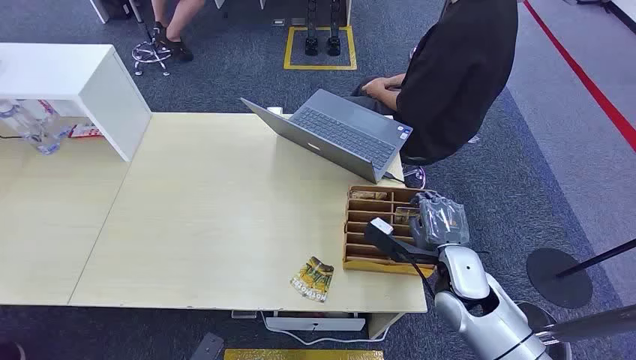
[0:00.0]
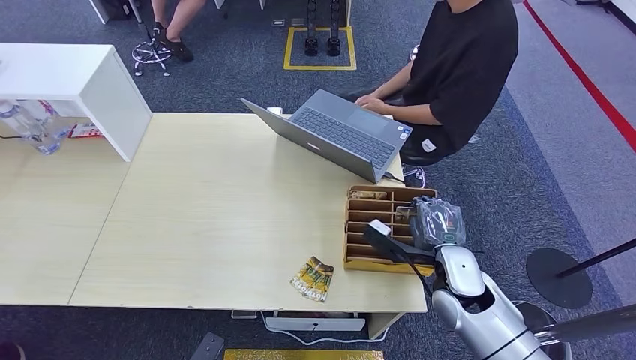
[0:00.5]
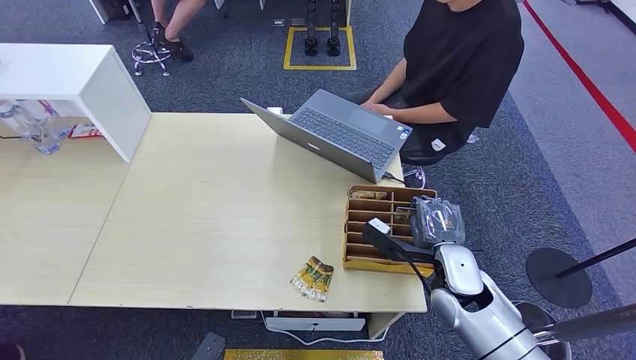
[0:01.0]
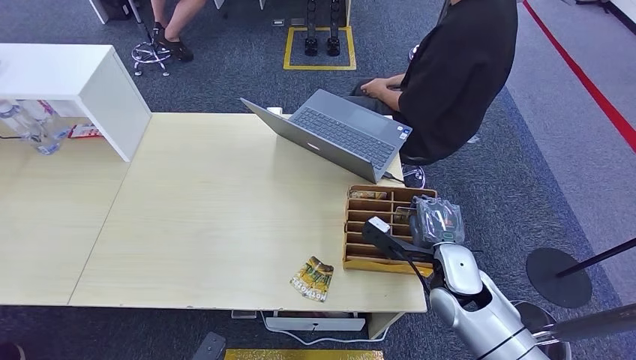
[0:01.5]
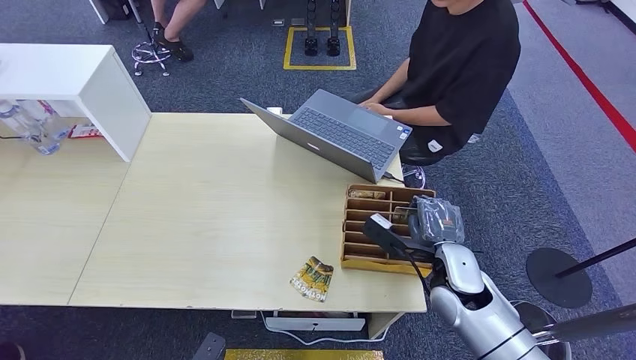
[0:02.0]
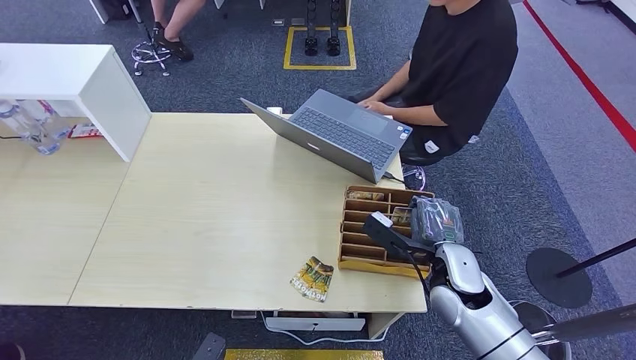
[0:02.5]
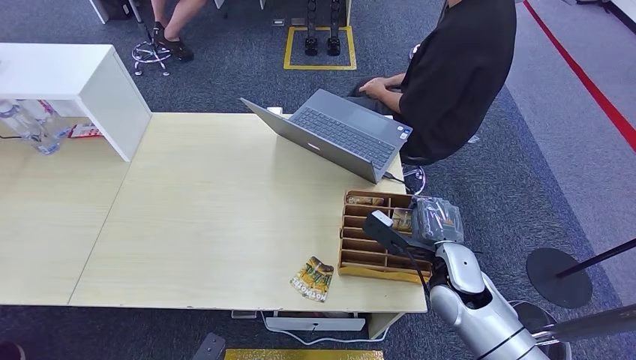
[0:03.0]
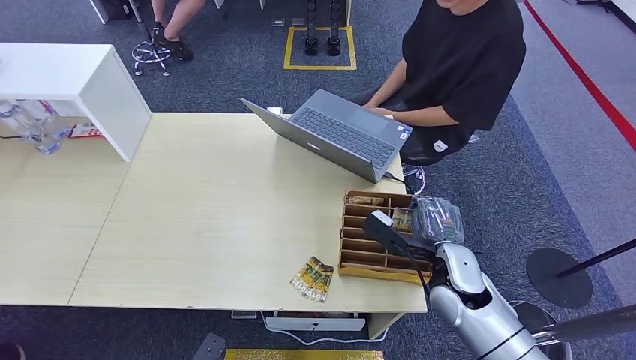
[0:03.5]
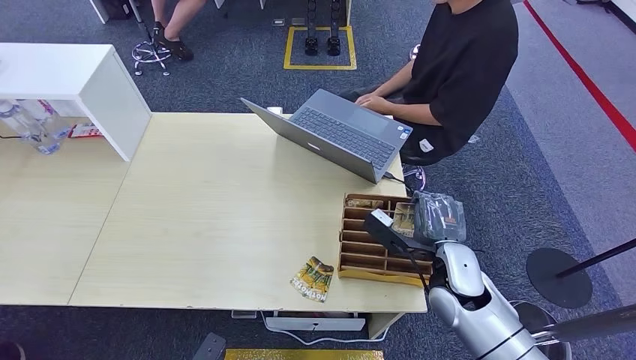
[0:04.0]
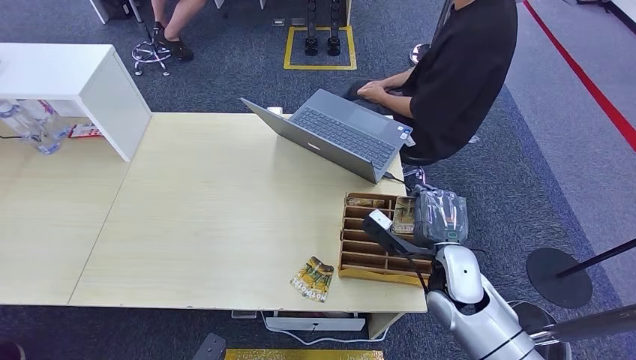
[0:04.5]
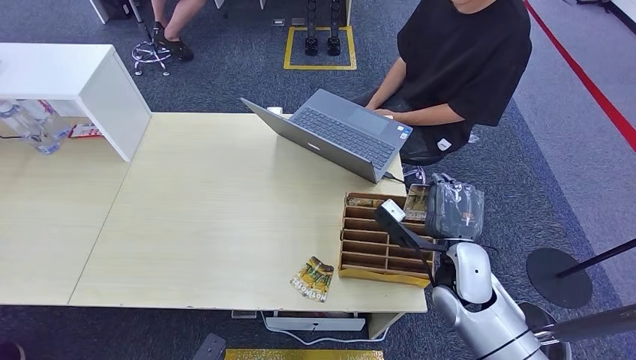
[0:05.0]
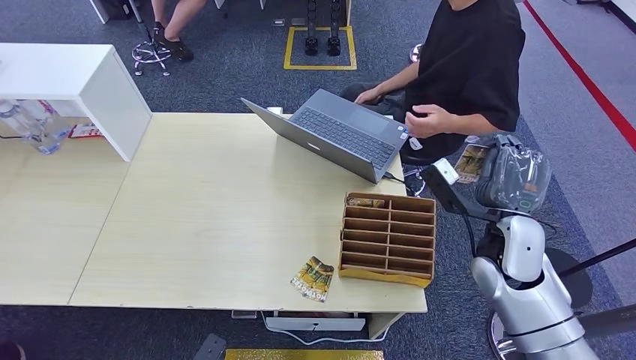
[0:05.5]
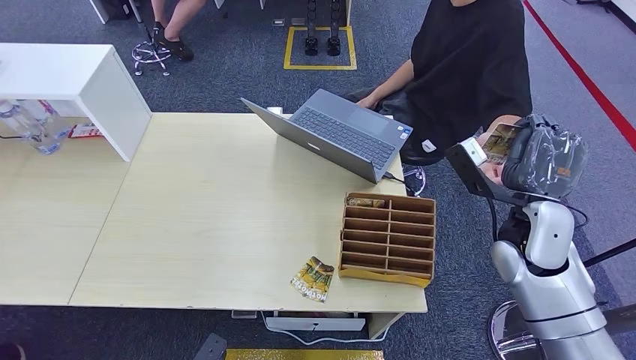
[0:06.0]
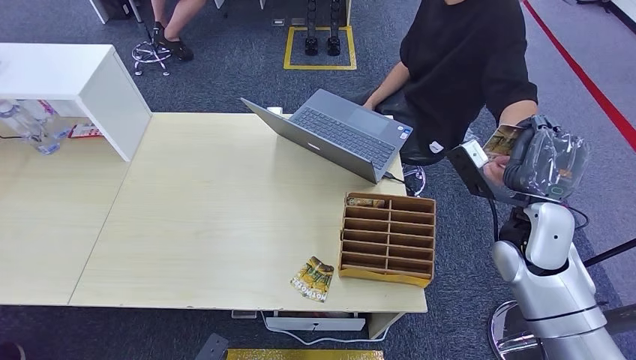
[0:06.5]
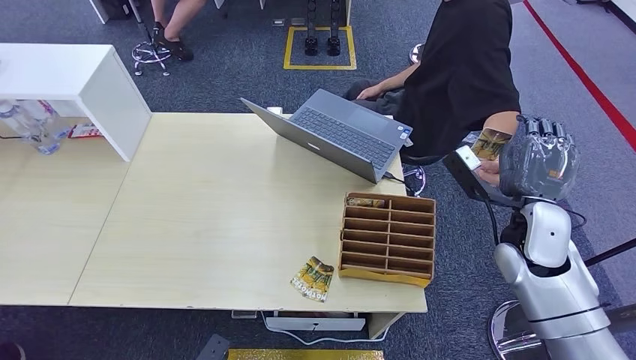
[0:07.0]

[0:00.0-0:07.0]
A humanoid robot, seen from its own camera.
Step, 0:00.0 to 0:04.0: Pick up the key card from the card box.
Step, 0:04.5 to 0:07.0: Hand the key card to the target.
0:02.0 to 0:03.5: Neither hand changes place.
0:05.0 to 0:07.0: The right hand is displaced to the right and upward by some 10 cm.

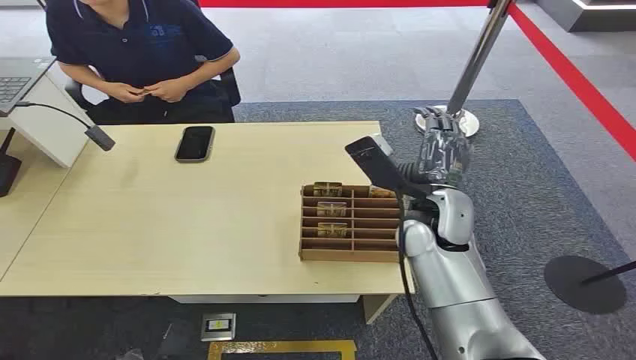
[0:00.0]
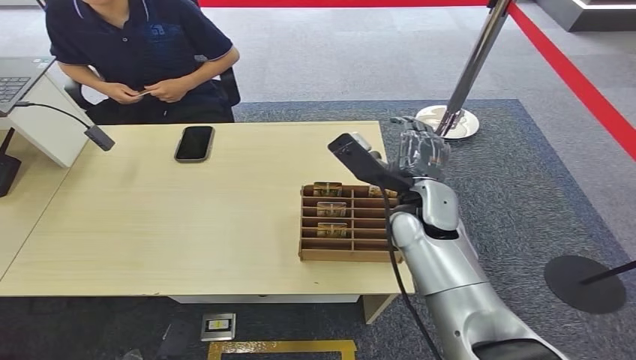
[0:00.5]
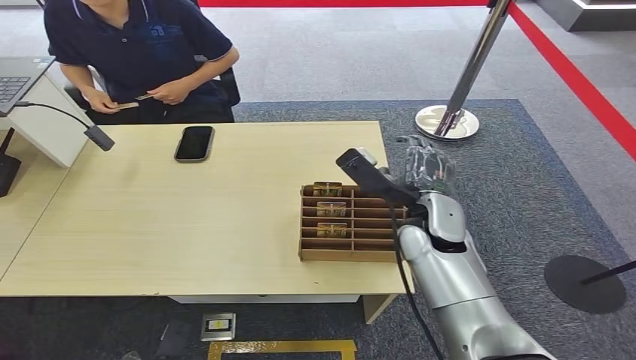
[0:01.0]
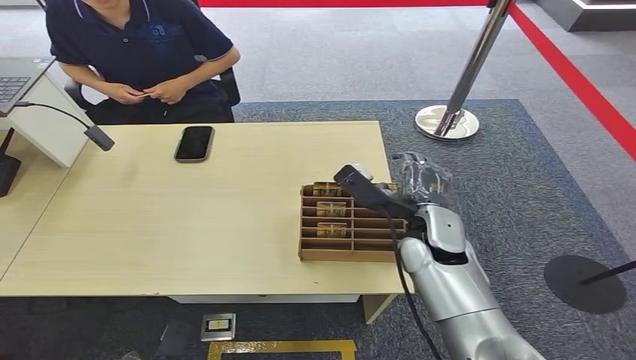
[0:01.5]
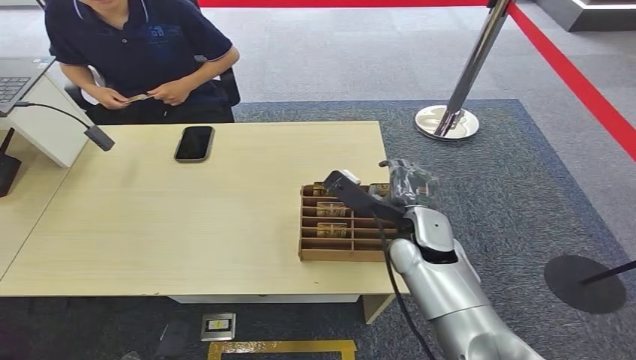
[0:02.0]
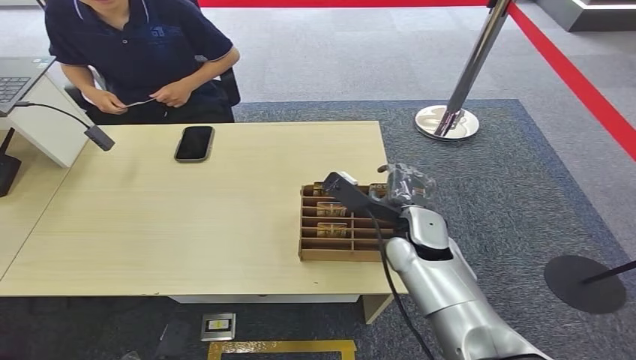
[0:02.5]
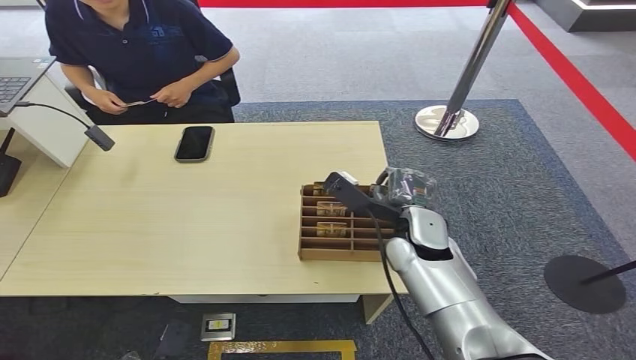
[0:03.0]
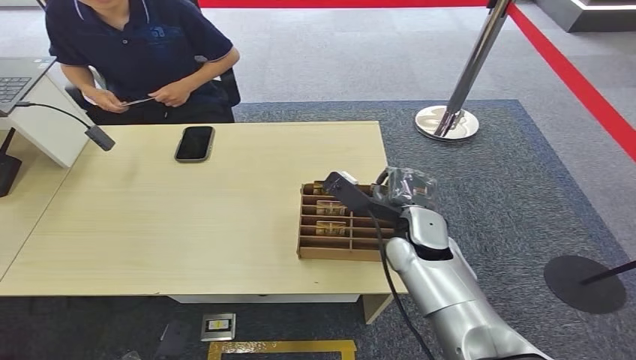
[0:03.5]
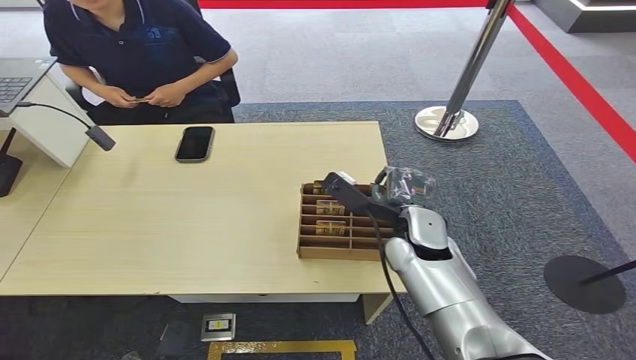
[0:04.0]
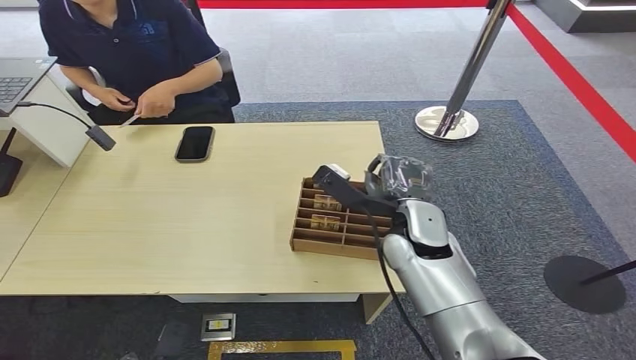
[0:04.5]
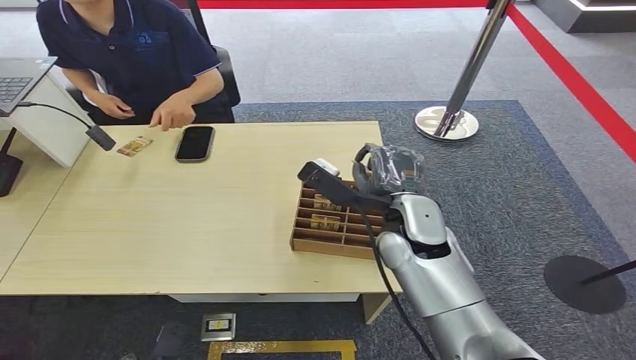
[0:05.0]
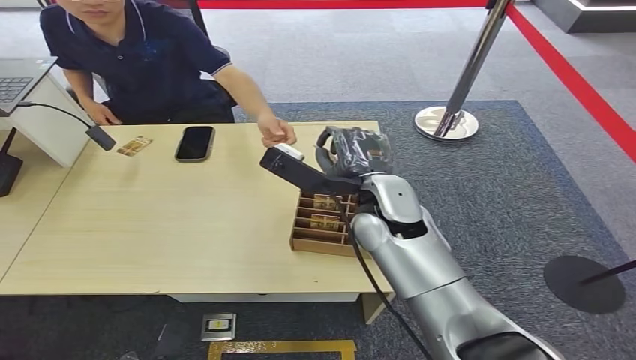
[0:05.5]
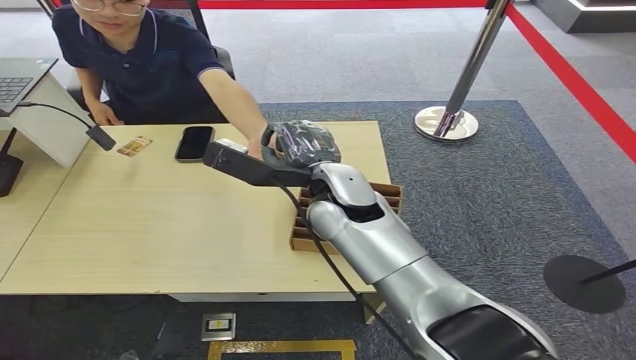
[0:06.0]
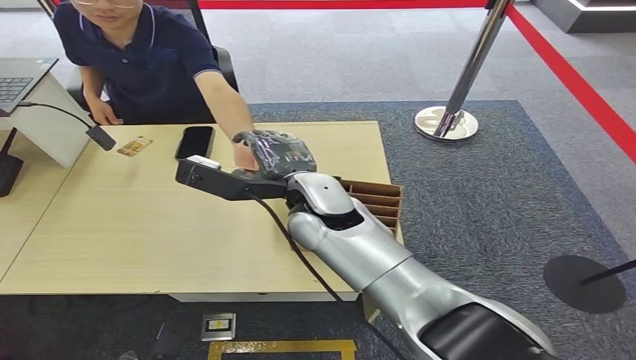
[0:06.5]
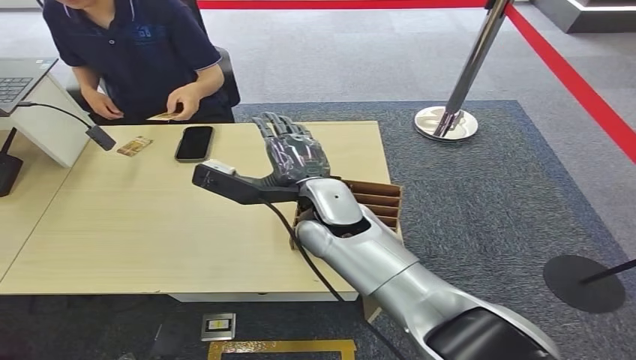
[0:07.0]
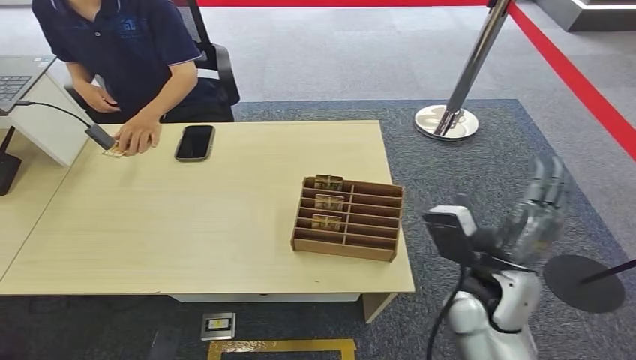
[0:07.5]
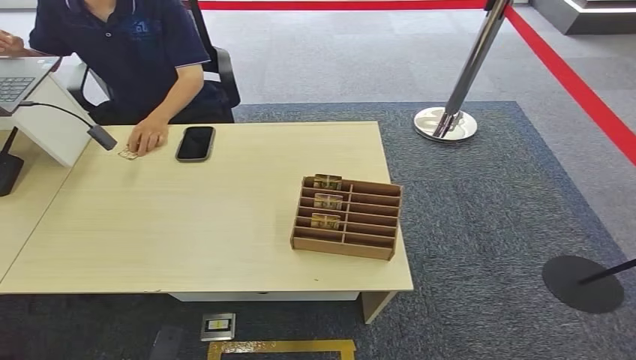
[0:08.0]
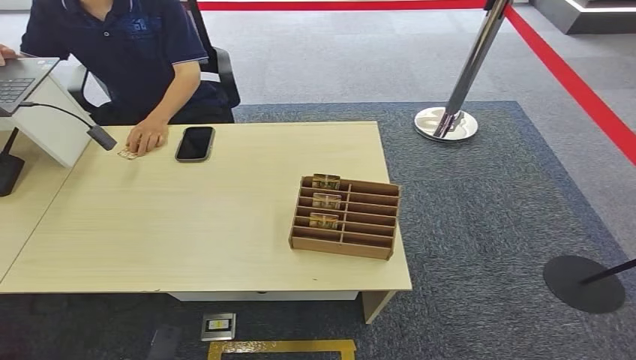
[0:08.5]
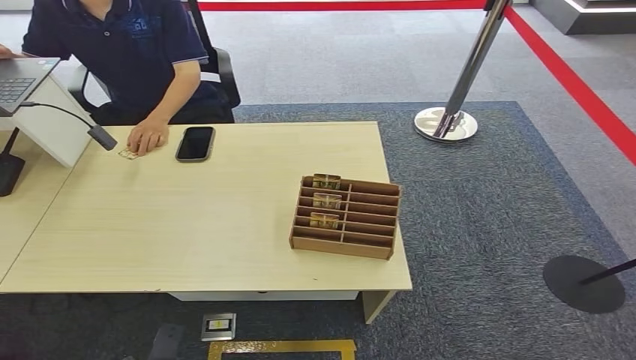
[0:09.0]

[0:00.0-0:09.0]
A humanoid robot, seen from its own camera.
Step, 0:00.0 to 0:04.0: Pick up the key card from the card box.
Step, 0:04.5 to 0:09.0: Hand the key card to the target.
0:02.0 to 0:04.5: There are only small adjustments of the hands.
0:04.5 to 0:07.0: The right hand is displaced to the left and upward by some 10 cm.
0:07.0 to 0:09.0: The right hand heads backward, downward and to the right, covering about 50 cm.
